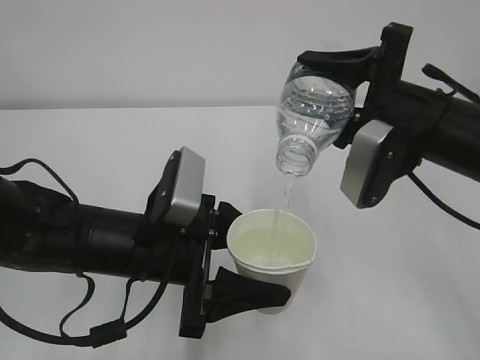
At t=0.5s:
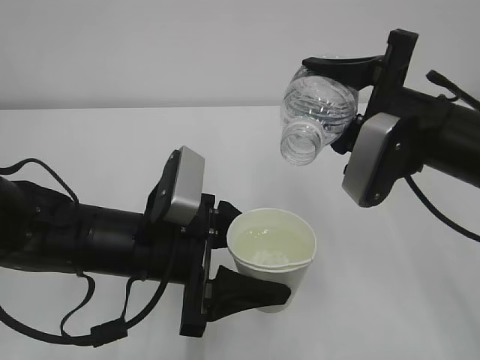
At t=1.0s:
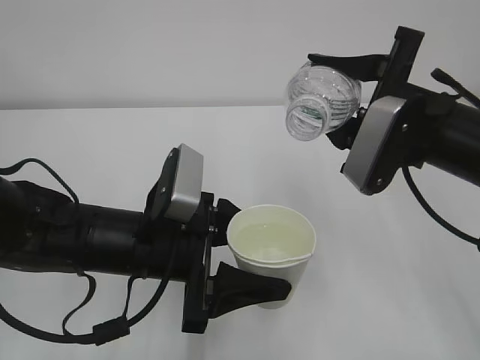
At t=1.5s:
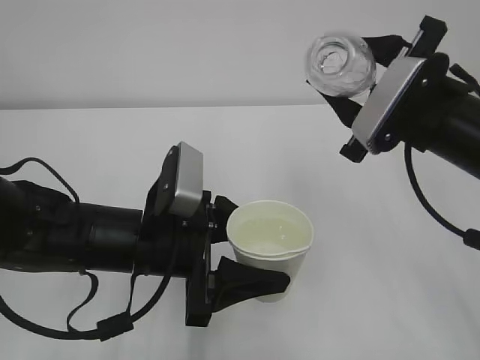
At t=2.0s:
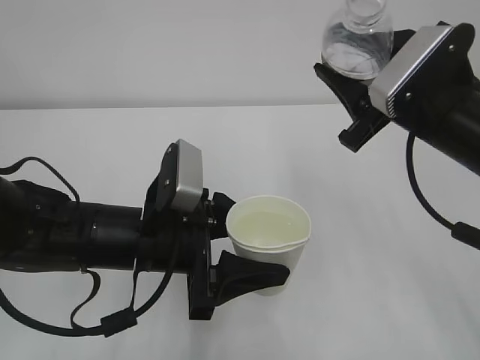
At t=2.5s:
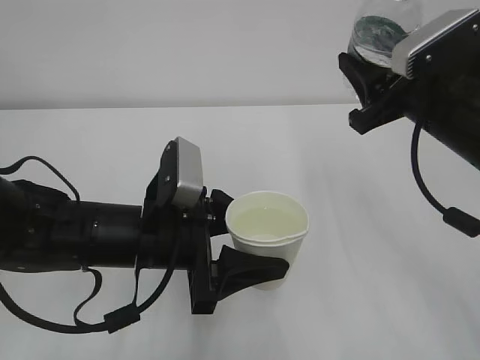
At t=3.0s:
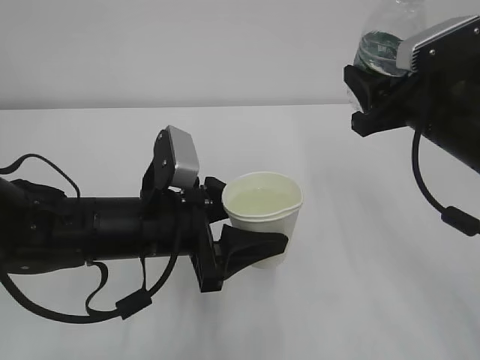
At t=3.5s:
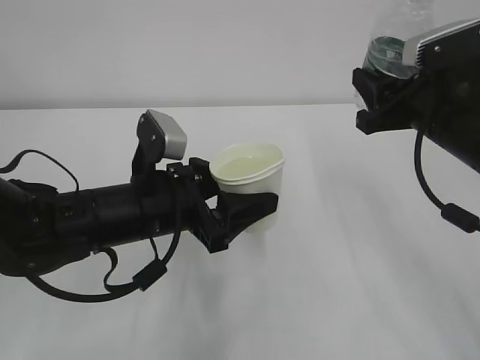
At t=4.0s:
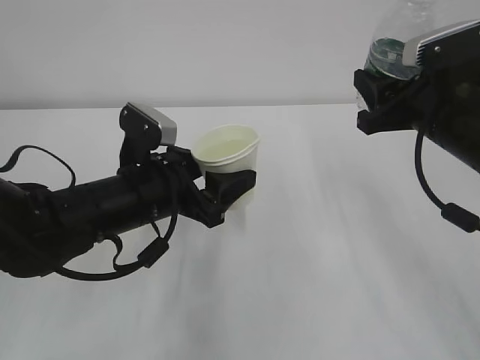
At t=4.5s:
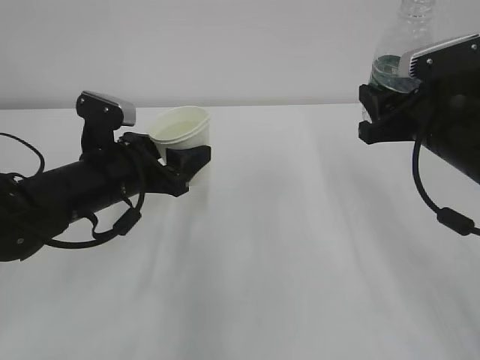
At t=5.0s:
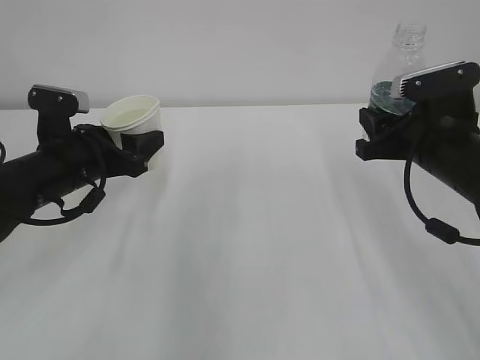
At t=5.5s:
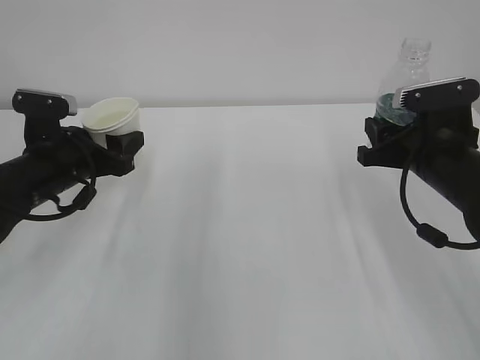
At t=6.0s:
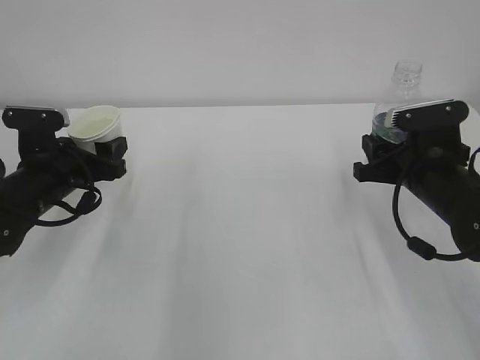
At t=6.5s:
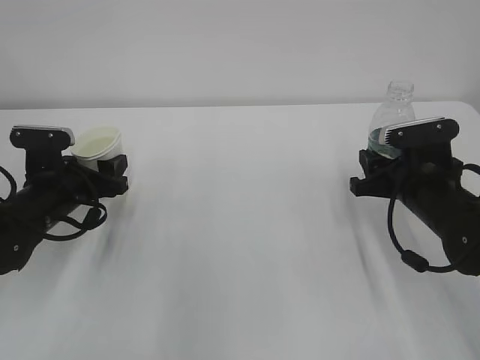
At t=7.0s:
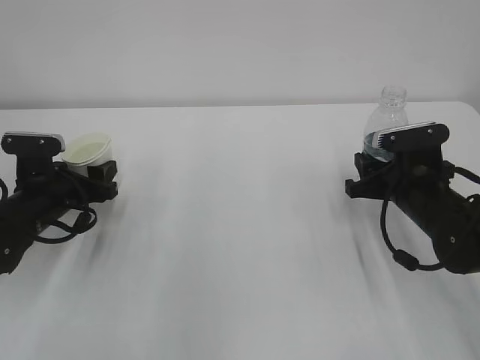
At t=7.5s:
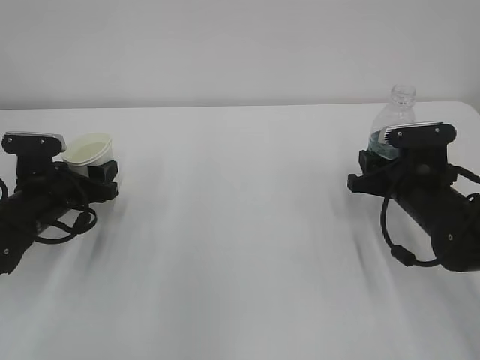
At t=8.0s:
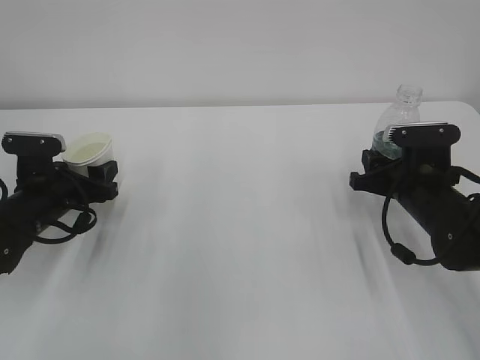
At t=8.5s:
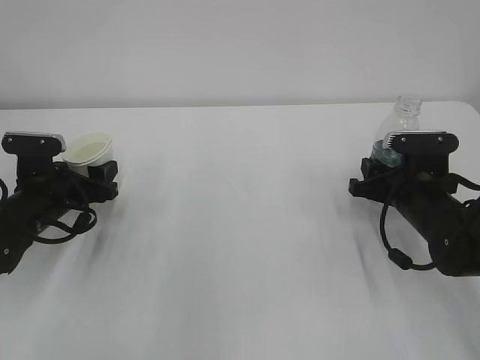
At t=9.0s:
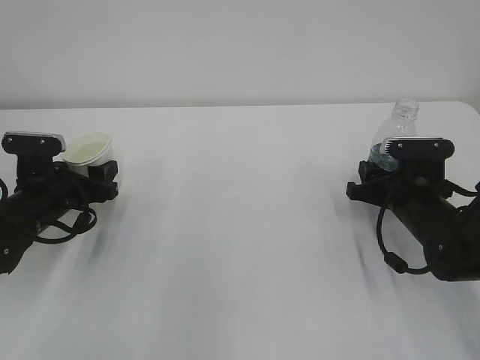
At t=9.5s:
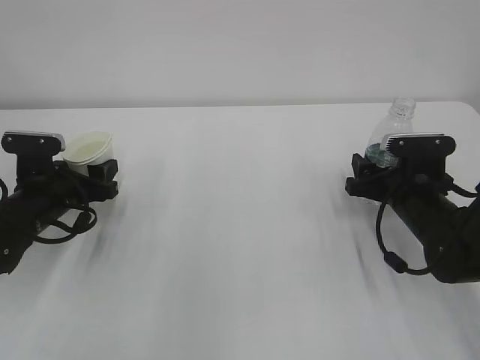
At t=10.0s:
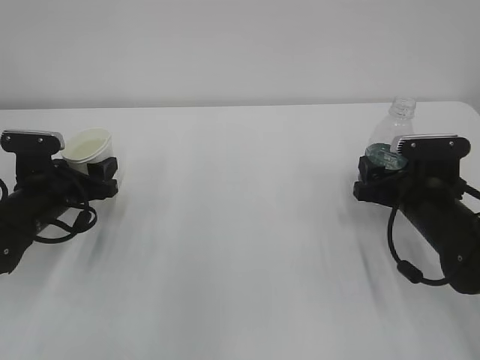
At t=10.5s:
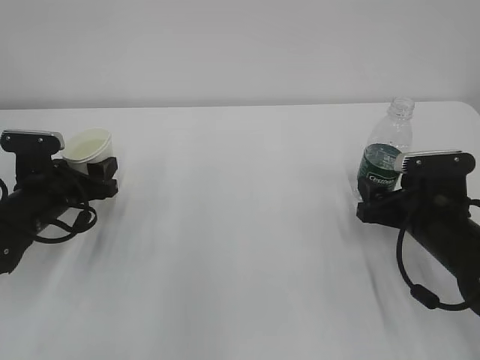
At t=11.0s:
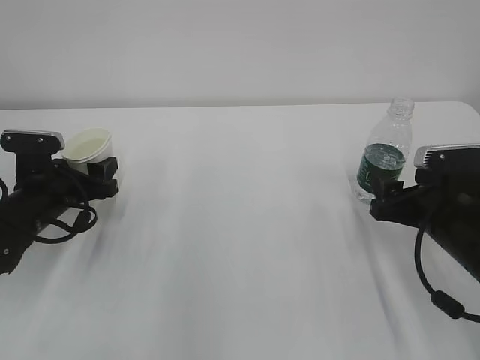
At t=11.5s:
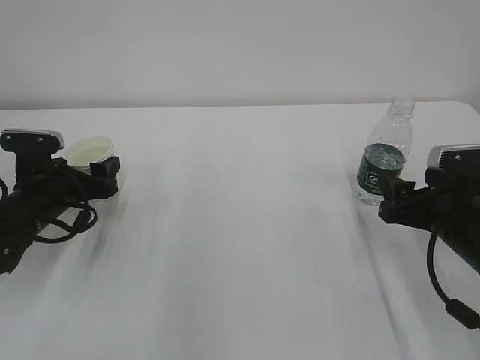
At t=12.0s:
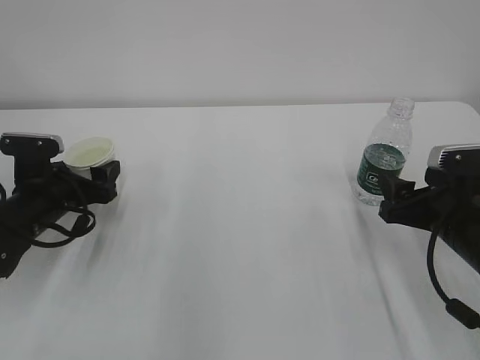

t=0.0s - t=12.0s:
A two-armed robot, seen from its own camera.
t=4.0s - t=6.0s: The left gripper shifts roughly 15 cm to the left and forward. The right gripper is displaced downward by approximately 10 cm.
t=6.0s - t=8.0s: The grippers make only small movements.
t=8.0s - t=10.0s: The right gripper opens its fingers.
t=10.0s - t=12.0s: The right gripper is displaced backward by approximately 5 cm, while the left gripper opens.

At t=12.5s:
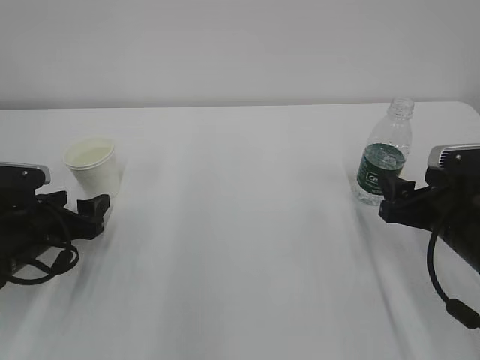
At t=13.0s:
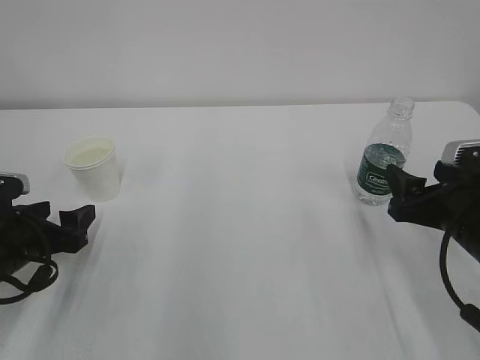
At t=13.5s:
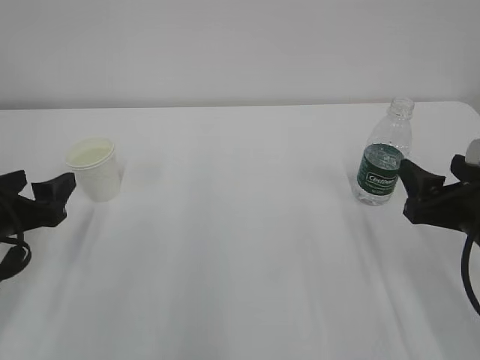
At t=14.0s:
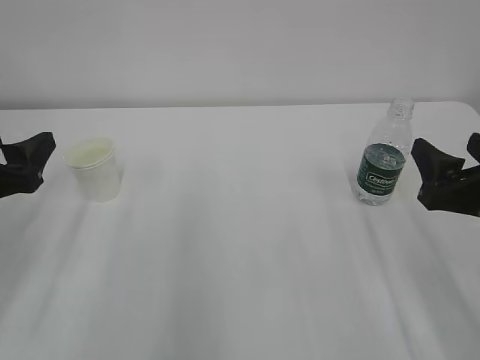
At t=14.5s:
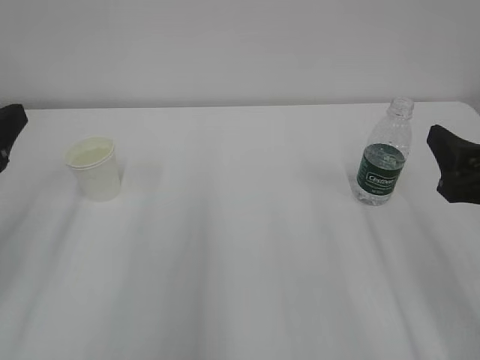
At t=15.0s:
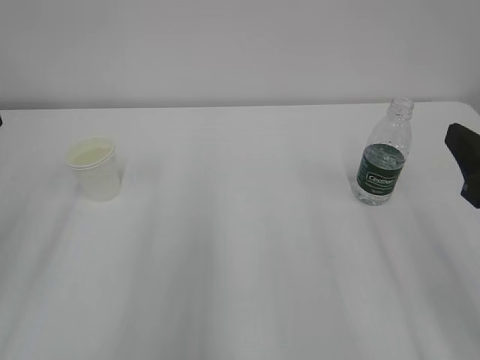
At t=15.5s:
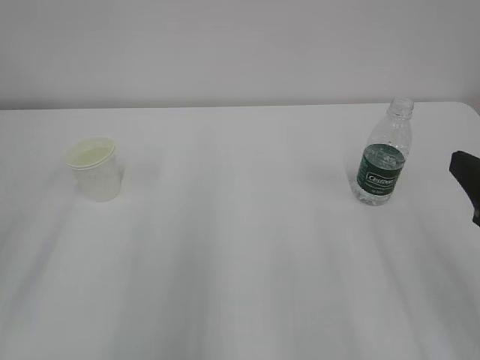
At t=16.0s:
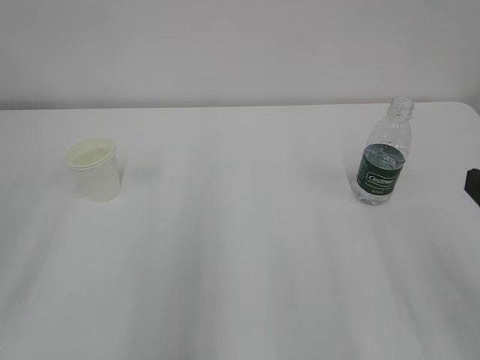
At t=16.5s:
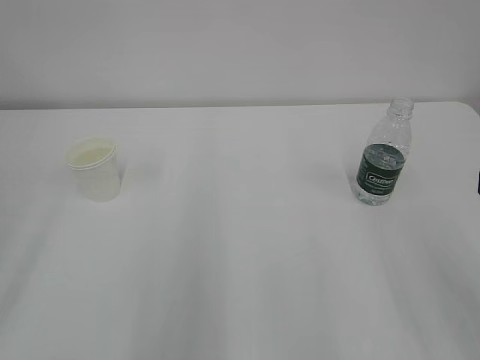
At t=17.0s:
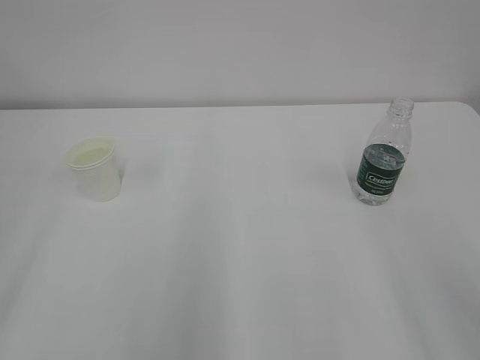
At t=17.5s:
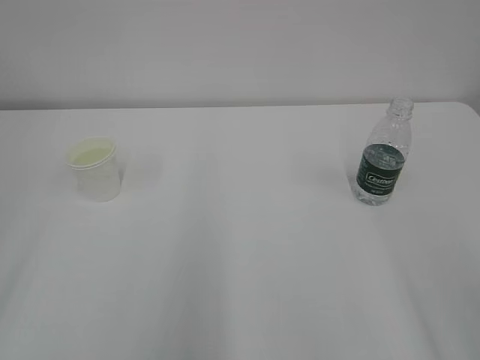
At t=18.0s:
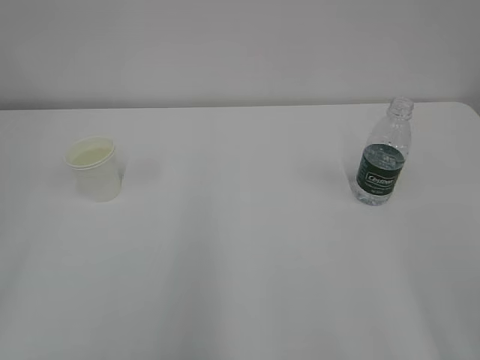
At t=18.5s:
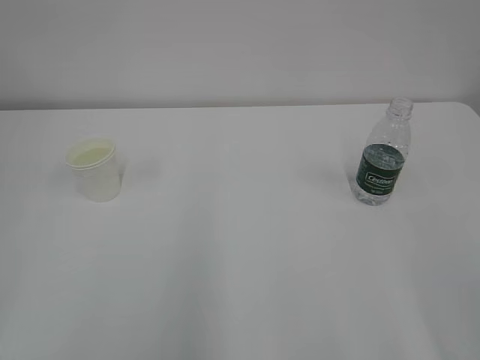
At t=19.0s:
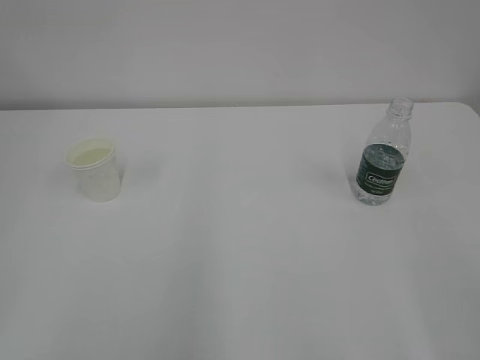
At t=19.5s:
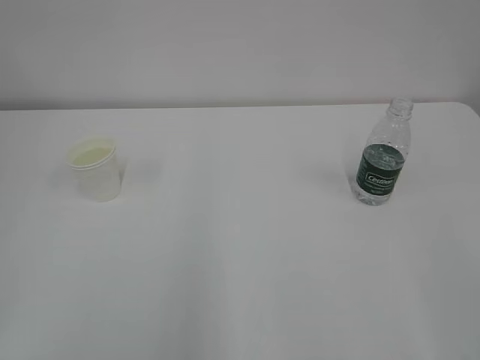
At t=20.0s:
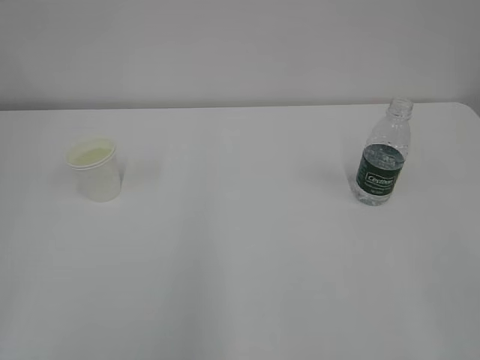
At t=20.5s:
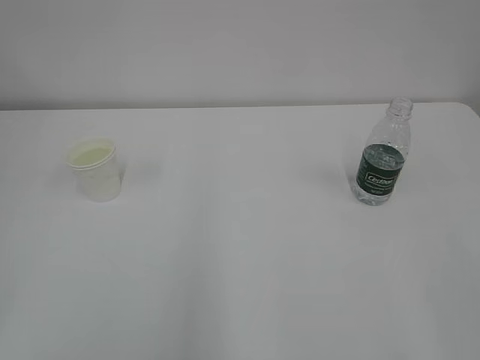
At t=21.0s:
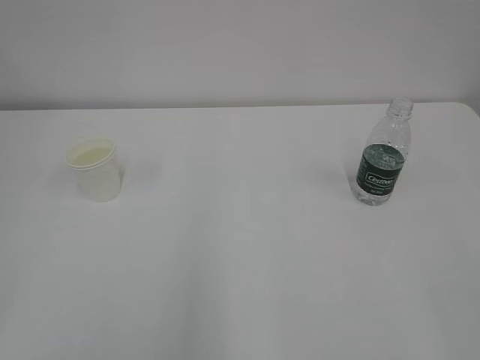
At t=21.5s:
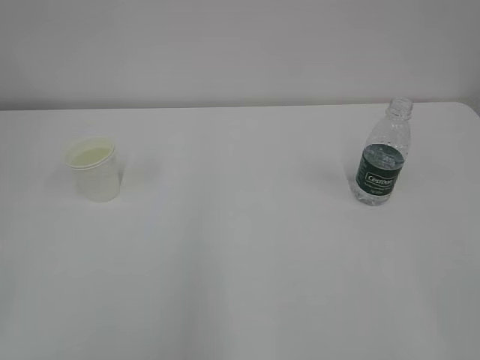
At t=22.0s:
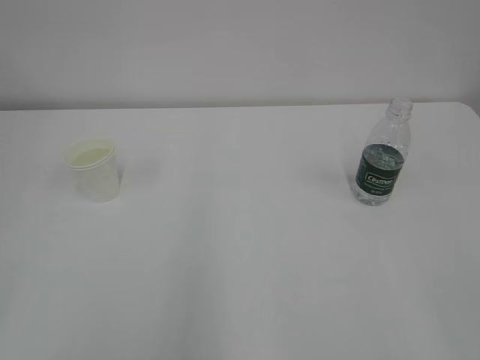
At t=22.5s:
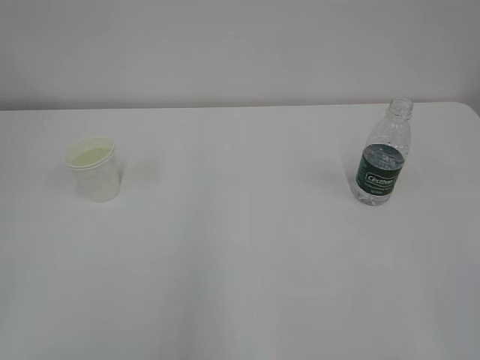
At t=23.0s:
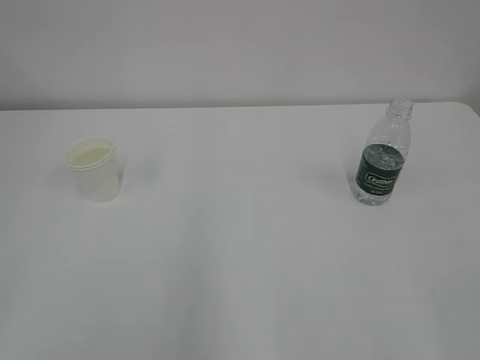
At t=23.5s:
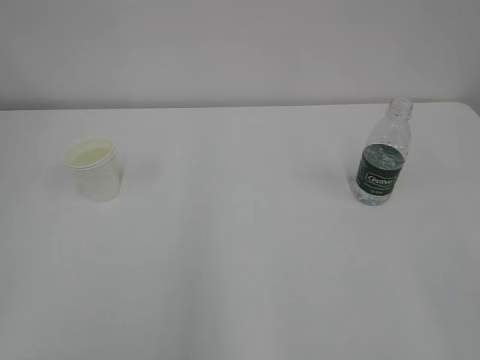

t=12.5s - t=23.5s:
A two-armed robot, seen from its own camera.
t=12.5s - t=14.5s: The left gripper shifts approximately 20 cm upward and backward. The right gripper heads upward and backward, covering approximately 10 cm.
t=14.5s - t=16.0s: The two grippers go approximately 5 cm backward.
t=21.5s - t=23.5s: Neither gripper changes place.

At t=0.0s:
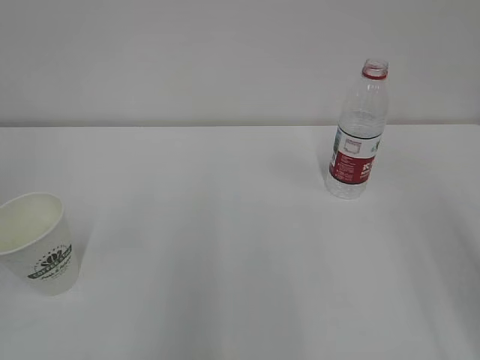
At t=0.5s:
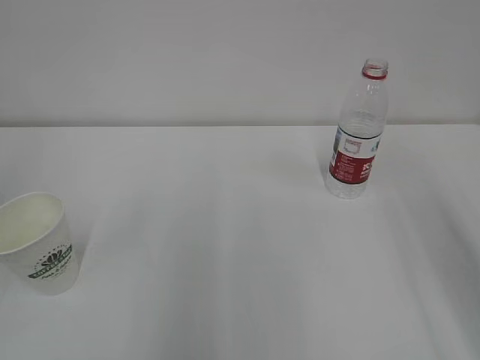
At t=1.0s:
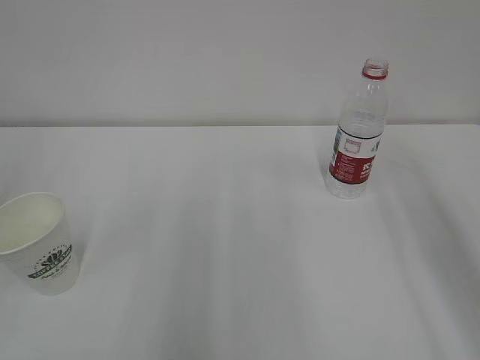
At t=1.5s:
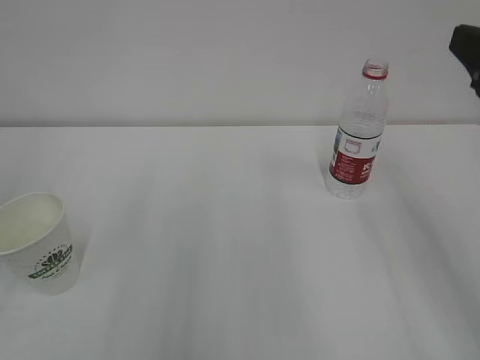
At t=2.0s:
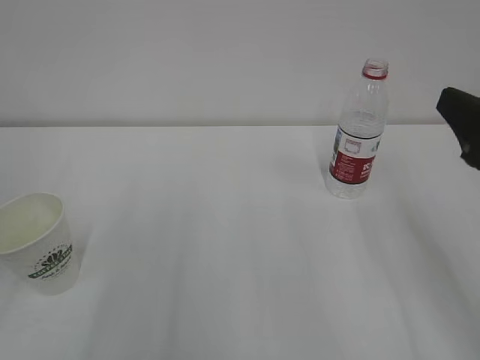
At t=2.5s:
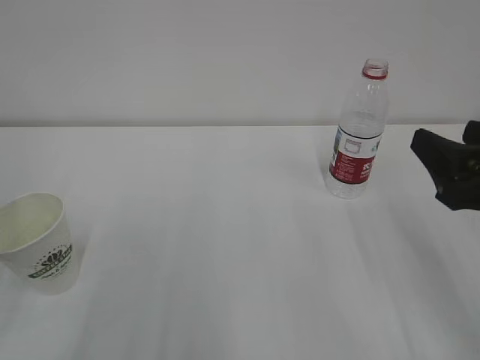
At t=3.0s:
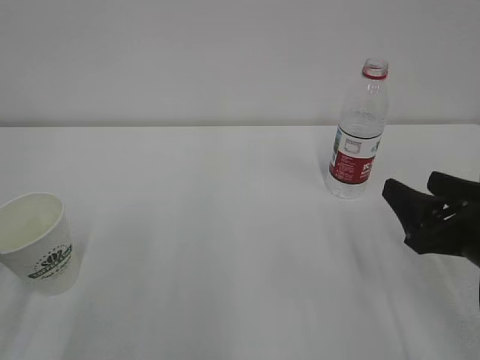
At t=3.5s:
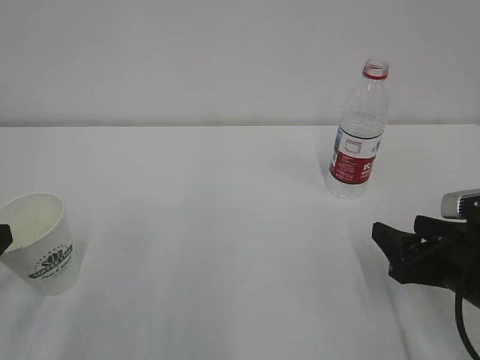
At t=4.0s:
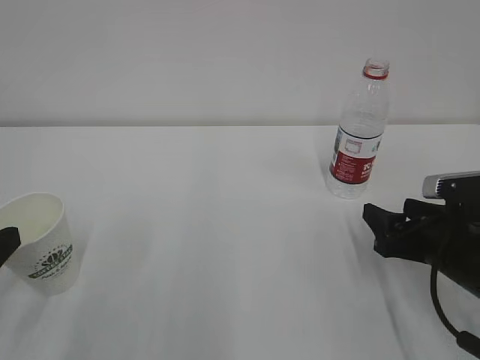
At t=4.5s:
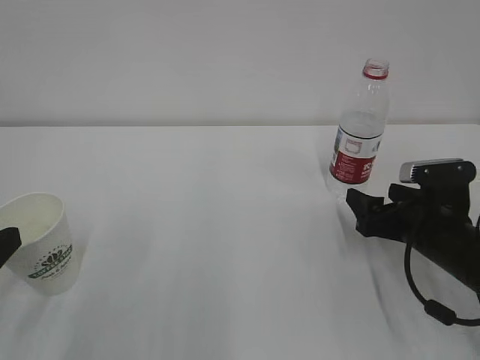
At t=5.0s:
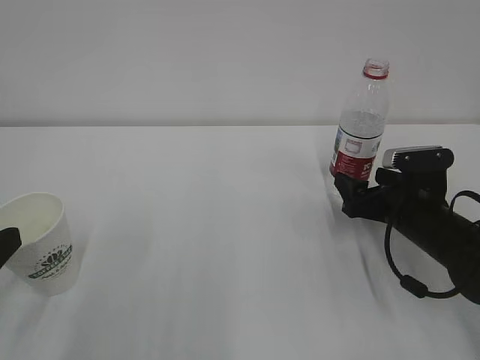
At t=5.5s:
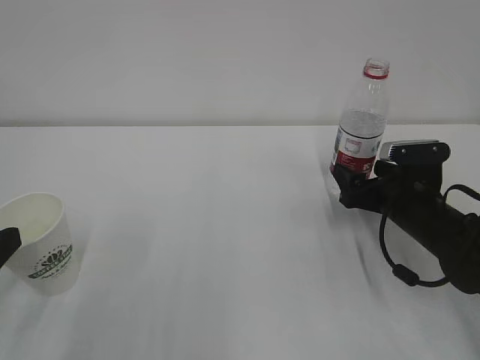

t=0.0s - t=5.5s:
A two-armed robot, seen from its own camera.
t=0.0s - t=2.0s: The right gripper goes roughly 10 cm downward and forward.
t=2.0s - t=3.5s: The right gripper is displaced downward by about 15 cm.
t=3.5s - t=5.5s: The right gripper heads forward, covering some 15 cm, and opens its fingers.
